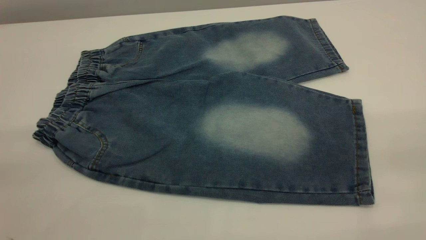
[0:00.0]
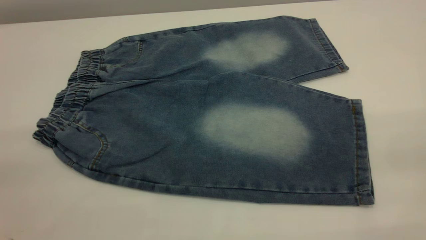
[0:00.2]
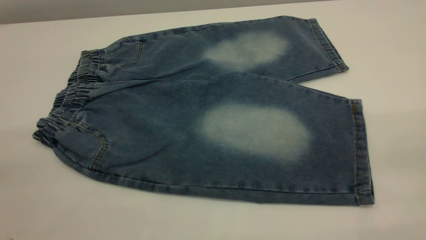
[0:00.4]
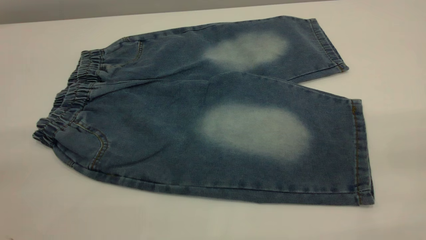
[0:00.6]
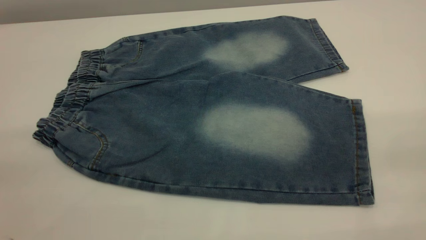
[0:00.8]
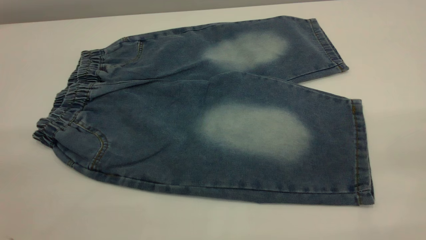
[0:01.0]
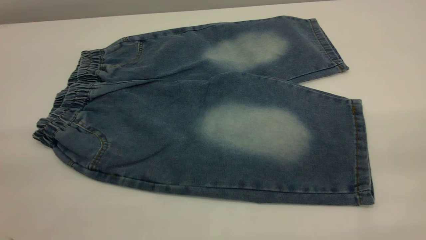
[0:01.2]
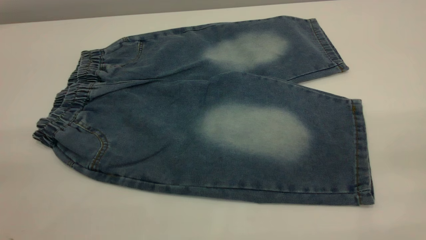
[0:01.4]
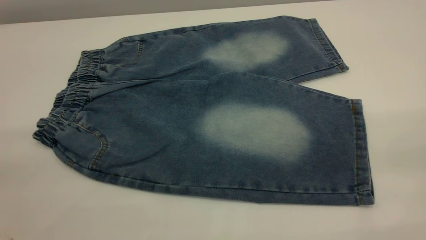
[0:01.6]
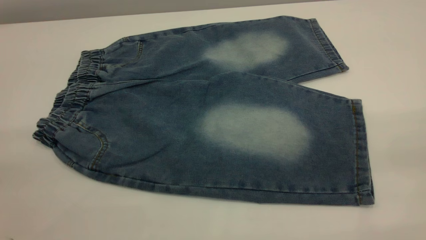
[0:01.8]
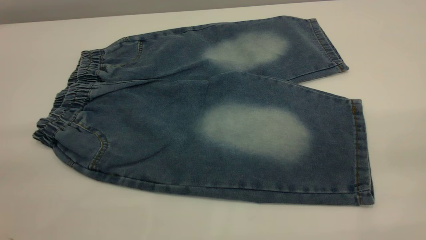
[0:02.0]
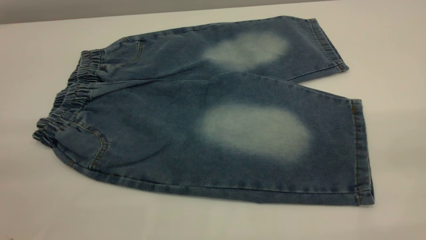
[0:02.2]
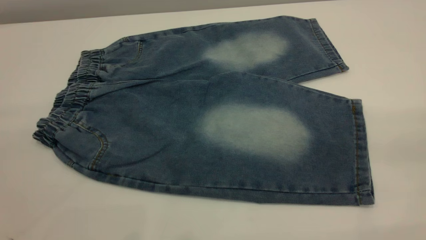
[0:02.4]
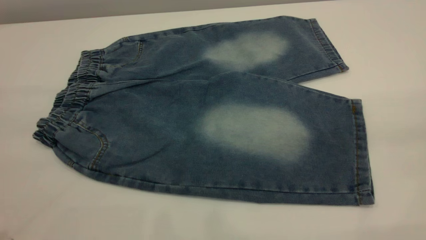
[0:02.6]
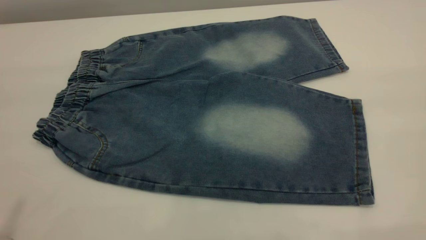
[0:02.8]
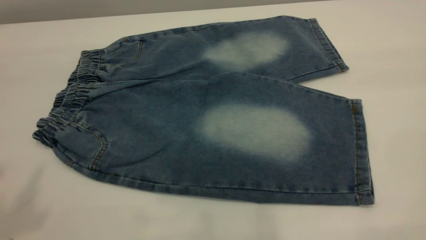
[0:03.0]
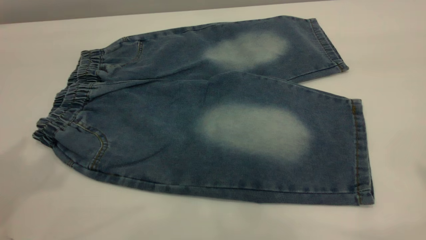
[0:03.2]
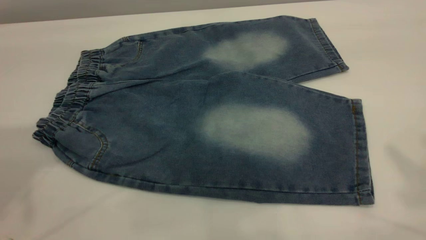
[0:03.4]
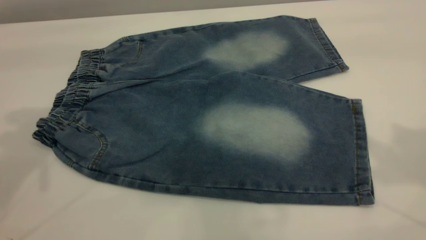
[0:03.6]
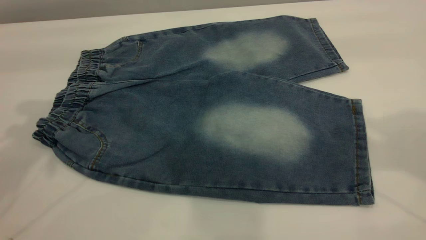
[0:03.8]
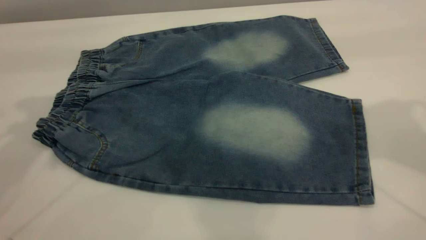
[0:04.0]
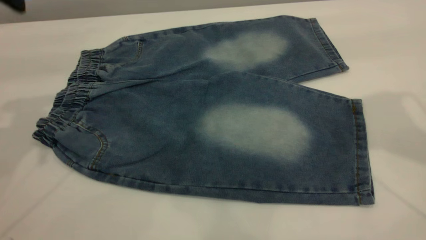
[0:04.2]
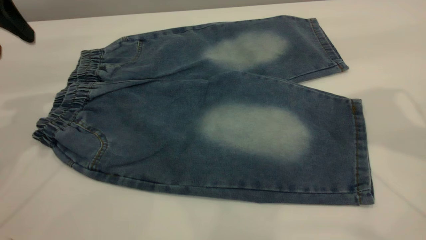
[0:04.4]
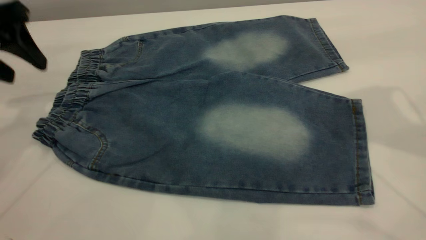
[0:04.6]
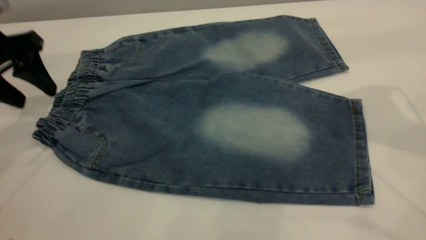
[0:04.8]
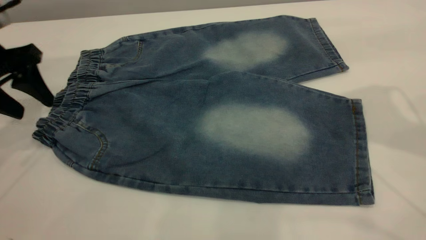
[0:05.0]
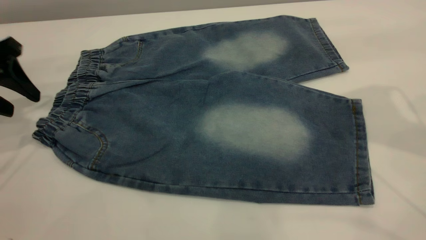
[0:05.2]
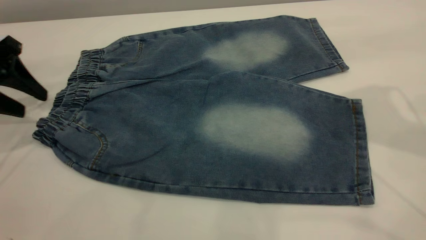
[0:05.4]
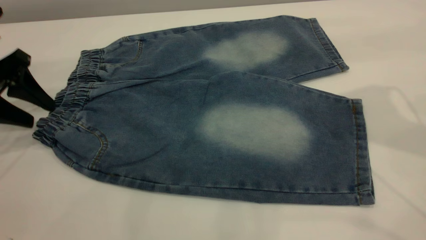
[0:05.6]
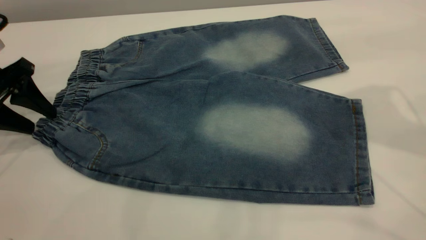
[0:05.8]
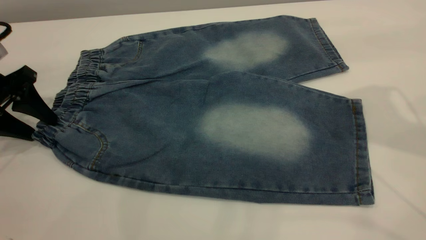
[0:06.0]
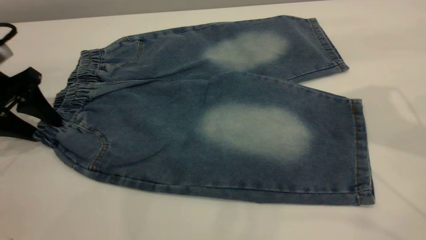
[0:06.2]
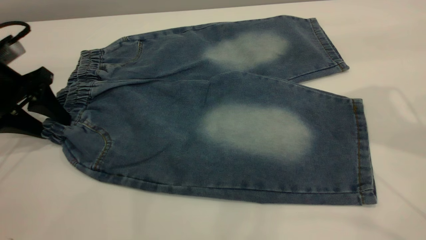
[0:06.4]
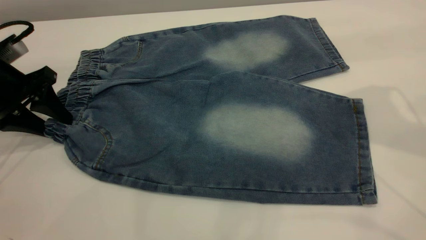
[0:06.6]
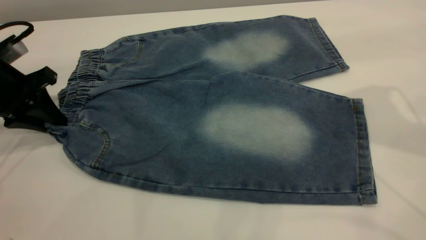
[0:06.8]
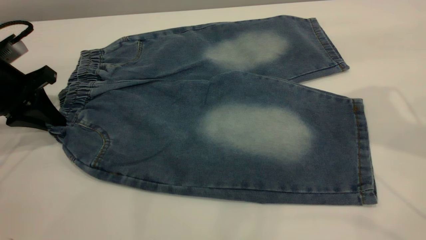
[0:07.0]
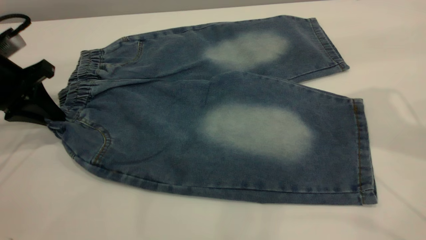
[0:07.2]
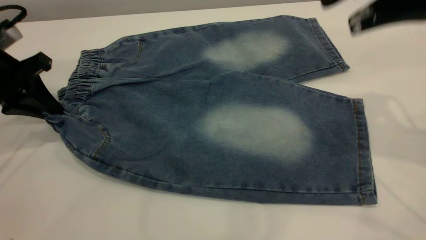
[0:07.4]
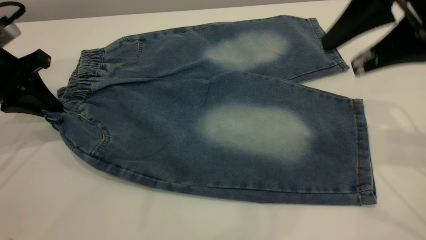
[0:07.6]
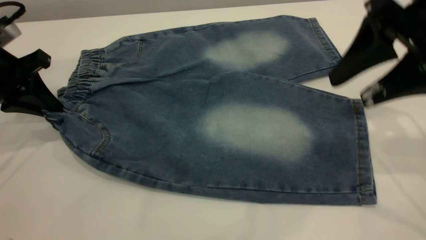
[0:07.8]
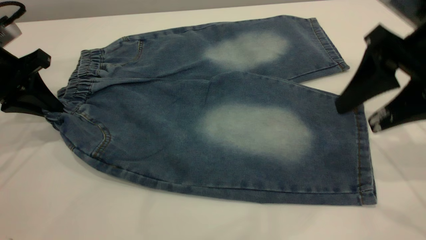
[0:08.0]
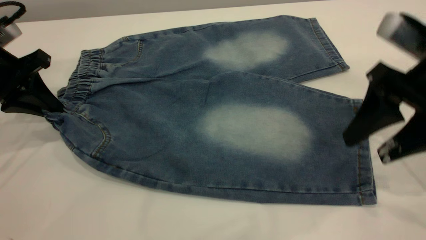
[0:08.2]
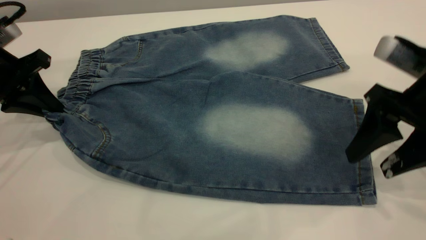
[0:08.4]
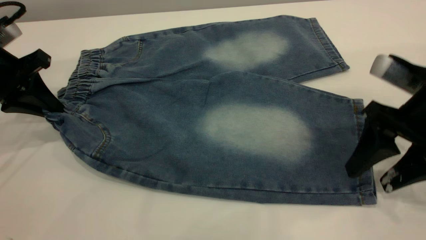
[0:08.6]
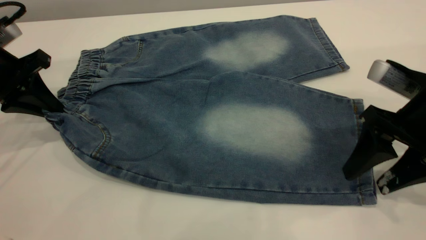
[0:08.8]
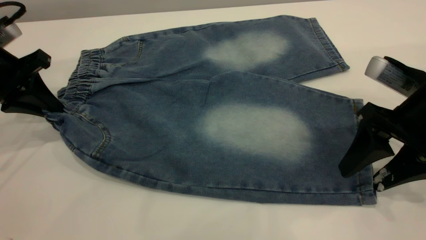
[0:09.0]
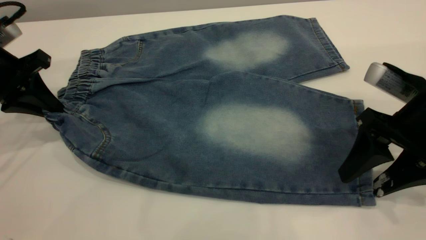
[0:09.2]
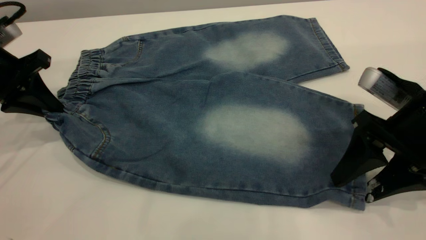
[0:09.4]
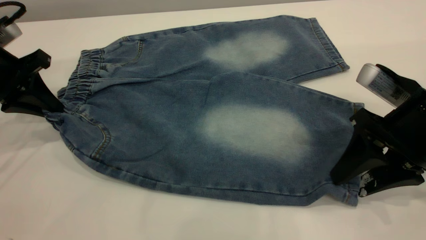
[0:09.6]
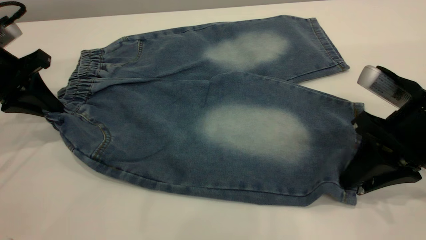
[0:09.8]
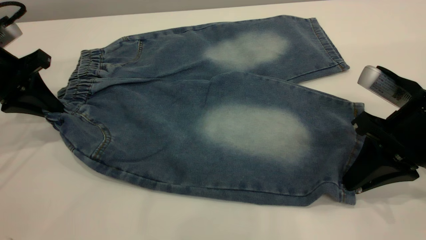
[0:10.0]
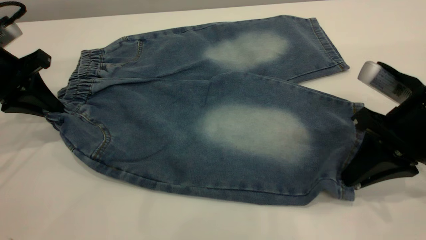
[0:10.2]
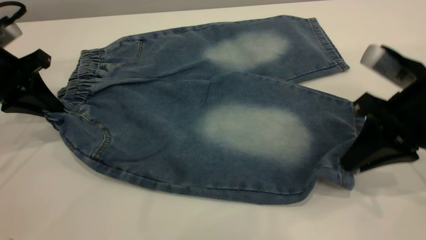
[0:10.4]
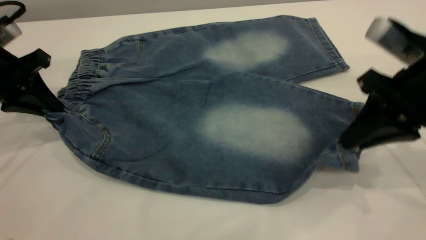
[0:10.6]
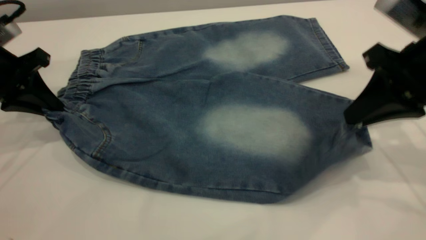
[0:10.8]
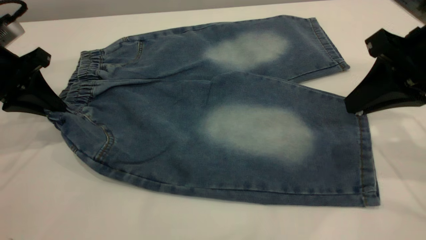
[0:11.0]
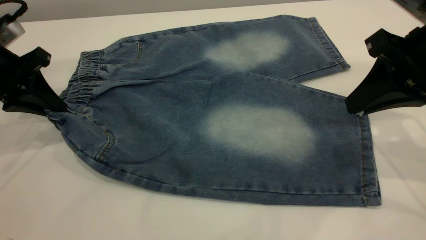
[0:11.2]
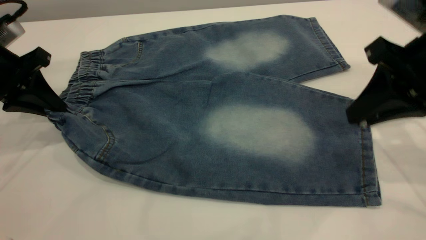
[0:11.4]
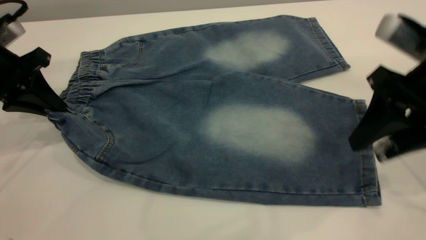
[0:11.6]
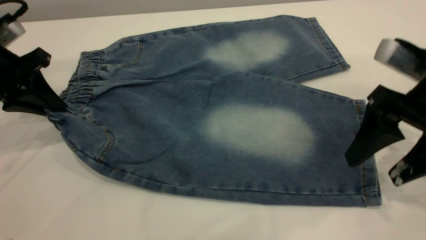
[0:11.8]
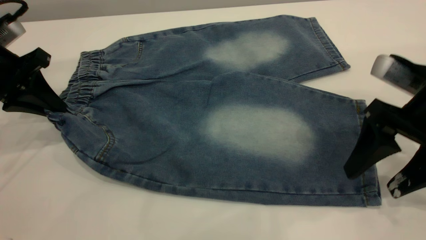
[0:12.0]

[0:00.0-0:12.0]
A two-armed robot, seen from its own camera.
0:00.0 to 0:01.6: The two grippers keep their place.
0:03.0 to 0:04.4: The left gripper goes roughly 25 cm downward and forward.
0:04.4 to 0:06.0: The left gripper travels downward by roughly 15 cm.
0:06.0 to 0:07.6: The left gripper closes its fingers. Meanwhile the right gripper shifts some 5 cm downward.
0:07.6 to 0:09.0: The right gripper is displaced downward by roughly 10 cm.
0:09.0 to 0:10.4: The right gripper closes its fingers.
0:10.4 to 0:12.0: The right gripper opens up.

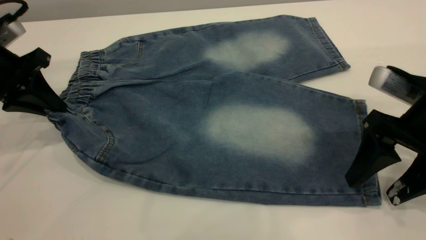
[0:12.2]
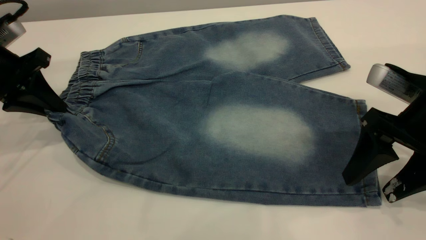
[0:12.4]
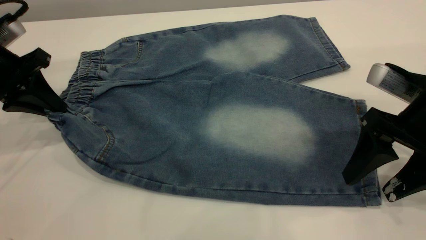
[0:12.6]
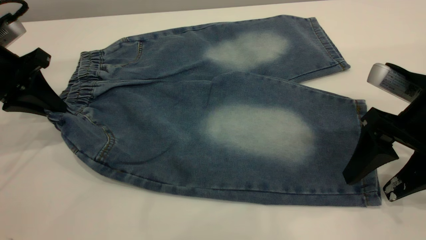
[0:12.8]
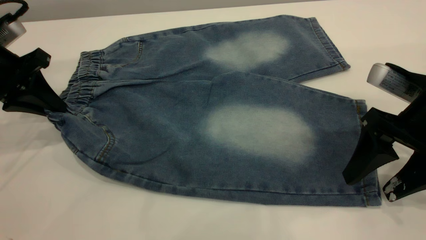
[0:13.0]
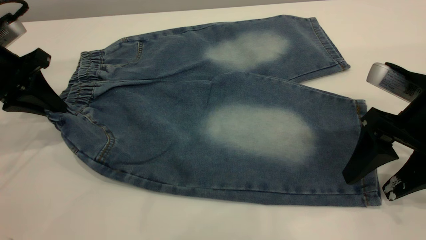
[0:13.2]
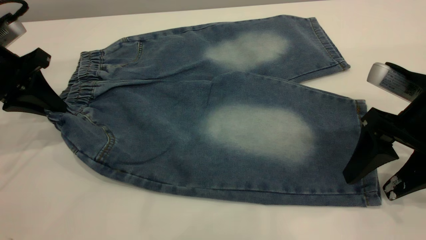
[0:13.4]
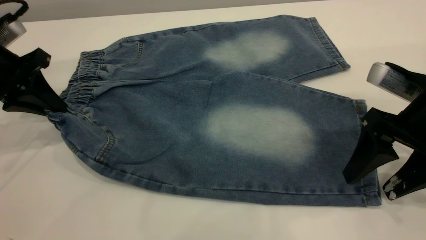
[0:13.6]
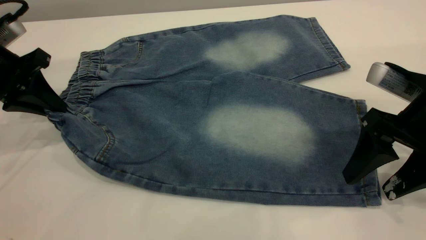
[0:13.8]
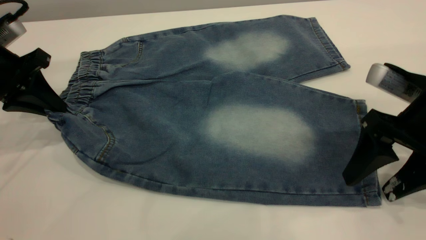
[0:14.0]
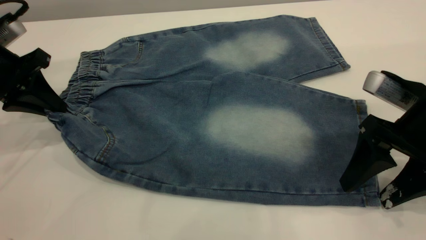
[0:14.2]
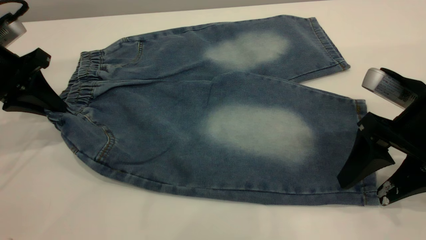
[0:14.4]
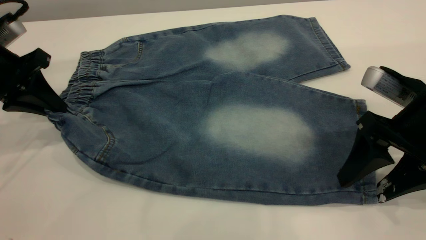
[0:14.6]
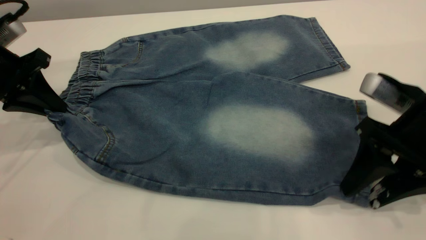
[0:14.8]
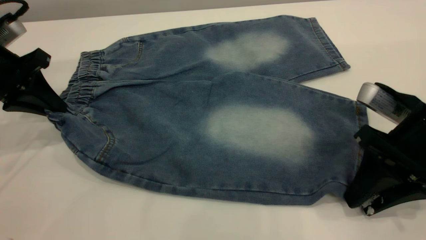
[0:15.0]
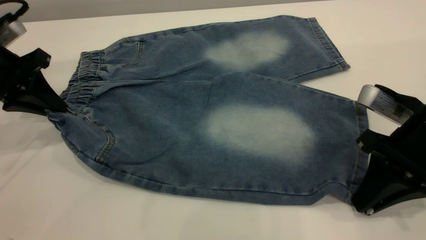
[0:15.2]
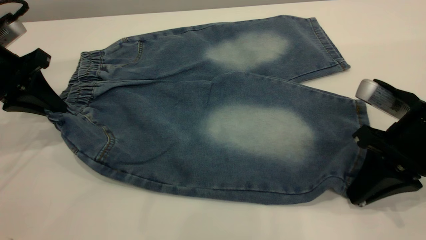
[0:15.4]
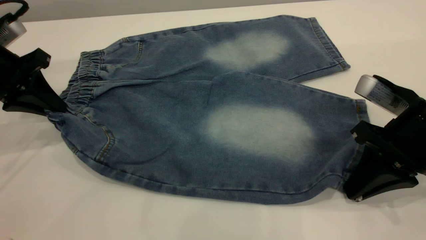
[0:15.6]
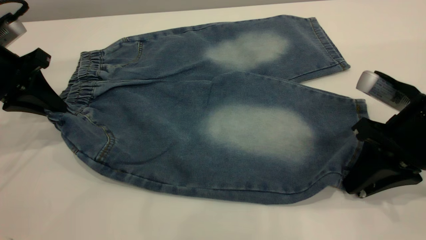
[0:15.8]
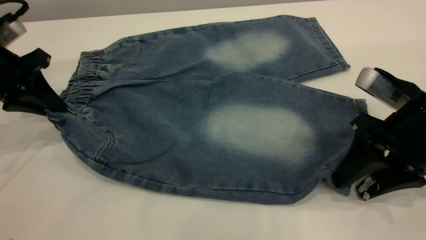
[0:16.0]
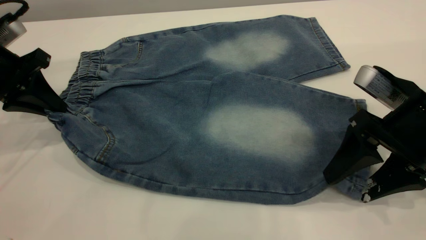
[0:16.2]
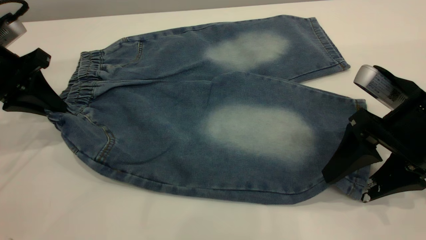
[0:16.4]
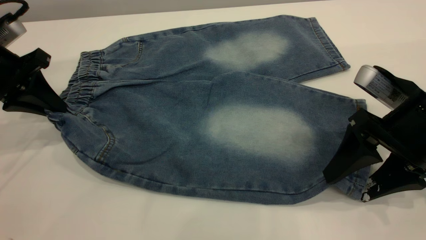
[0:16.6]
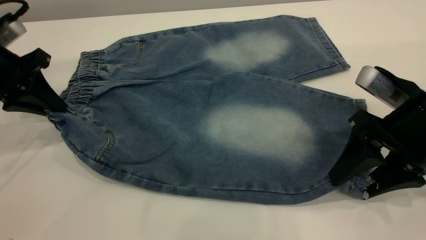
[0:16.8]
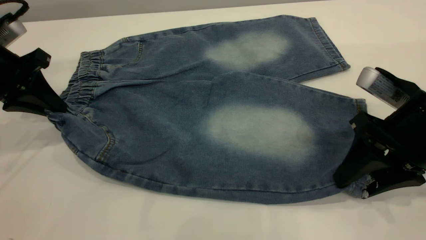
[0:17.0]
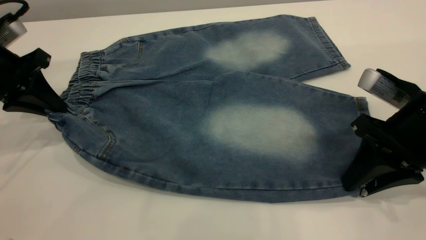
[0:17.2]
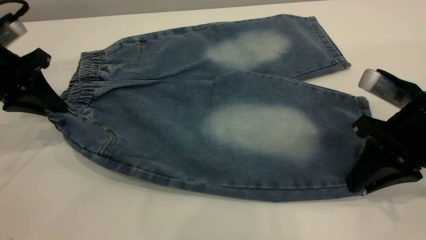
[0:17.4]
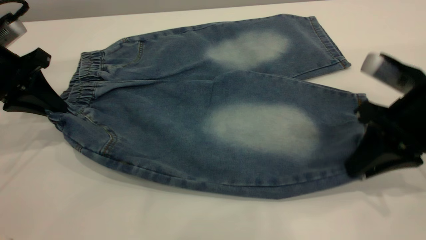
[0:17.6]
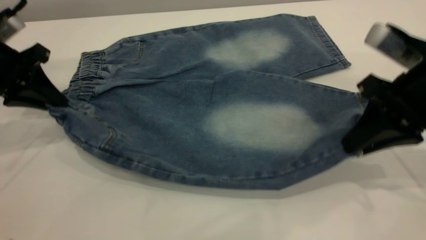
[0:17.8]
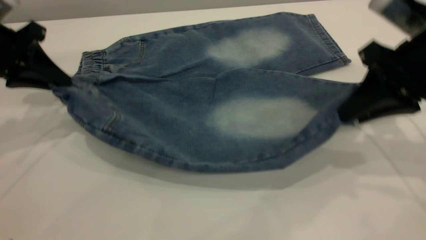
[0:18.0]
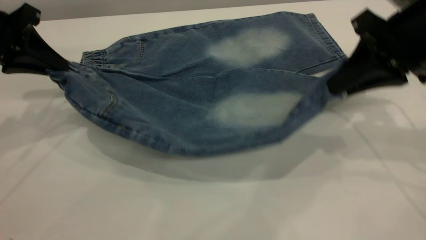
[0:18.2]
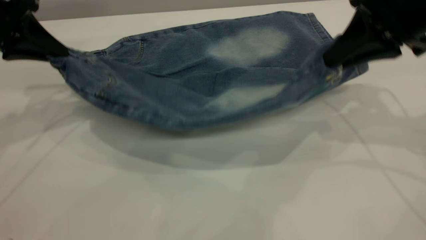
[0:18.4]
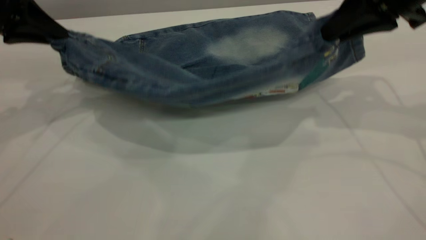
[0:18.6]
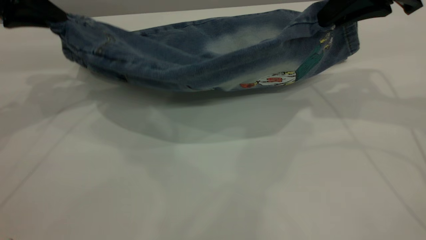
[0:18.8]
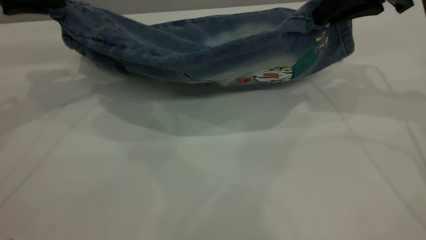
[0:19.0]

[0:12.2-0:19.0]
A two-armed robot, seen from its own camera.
0:12.2 to 0:13.6: Both grippers stay about where they are.
0:13.6 to 0:15.0: The right gripper closes up.
0:15.0 to 0:16.2: The right gripper opens.
0:16.2 to 0:17.6: The right gripper closes up.
0:17.6 to 0:19.0: The right gripper heads forward and upward, covering about 15 cm, while the left gripper moves upward and forward, about 10 cm.
